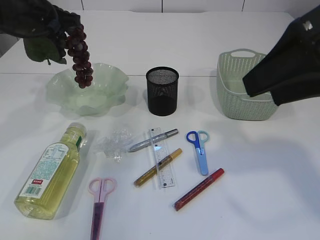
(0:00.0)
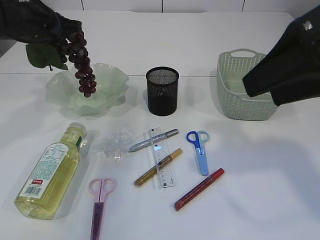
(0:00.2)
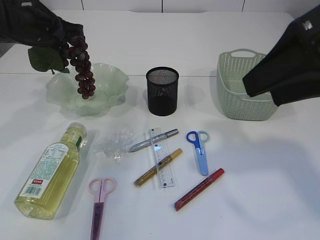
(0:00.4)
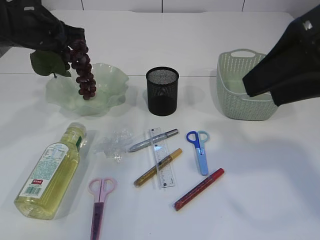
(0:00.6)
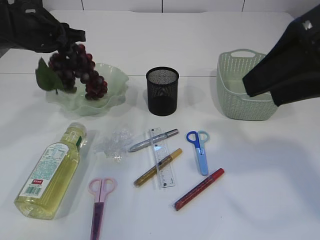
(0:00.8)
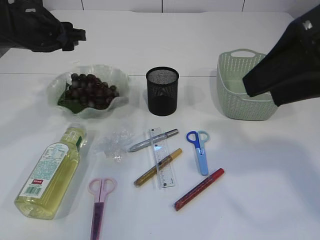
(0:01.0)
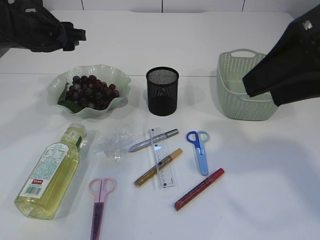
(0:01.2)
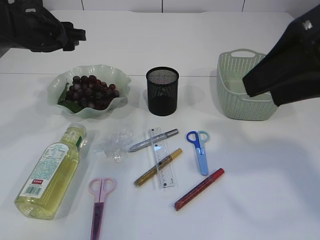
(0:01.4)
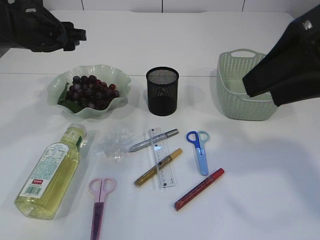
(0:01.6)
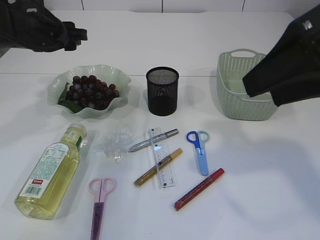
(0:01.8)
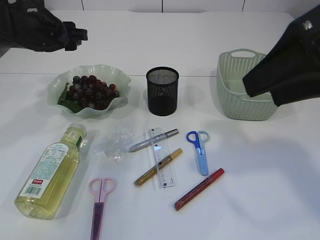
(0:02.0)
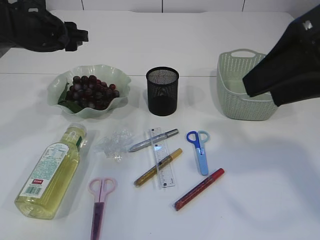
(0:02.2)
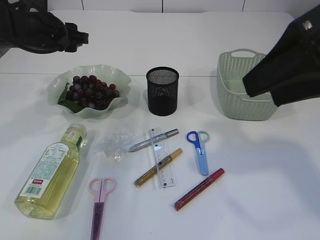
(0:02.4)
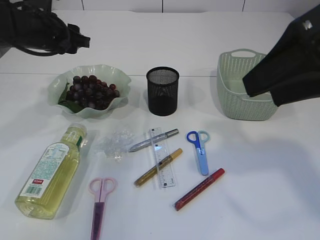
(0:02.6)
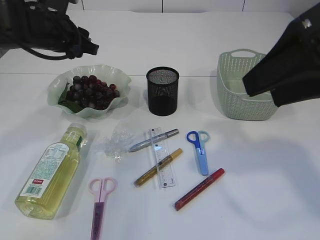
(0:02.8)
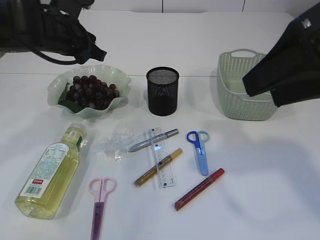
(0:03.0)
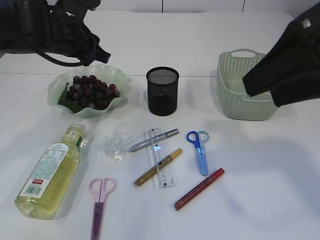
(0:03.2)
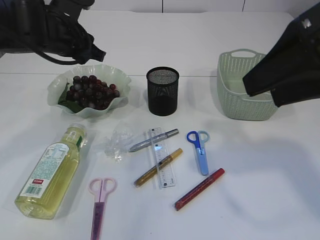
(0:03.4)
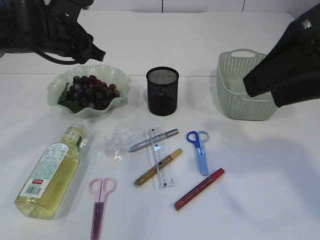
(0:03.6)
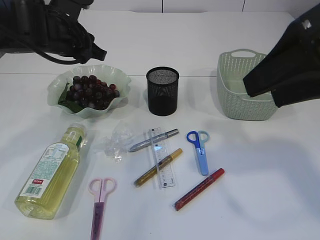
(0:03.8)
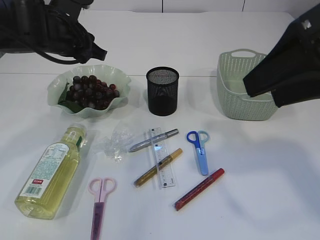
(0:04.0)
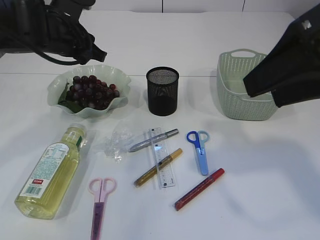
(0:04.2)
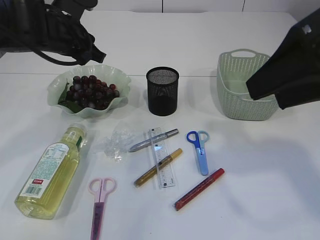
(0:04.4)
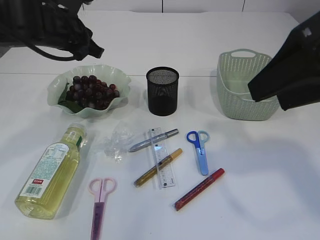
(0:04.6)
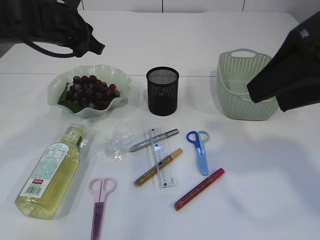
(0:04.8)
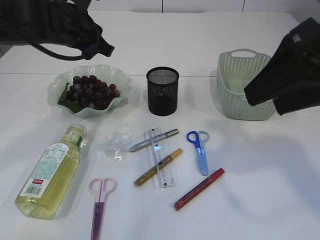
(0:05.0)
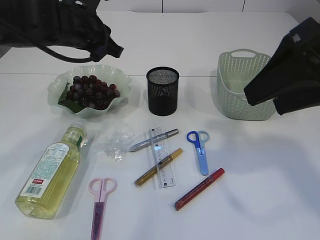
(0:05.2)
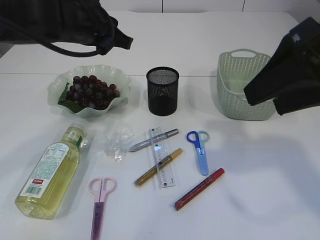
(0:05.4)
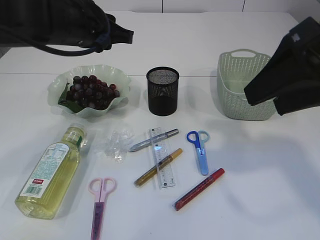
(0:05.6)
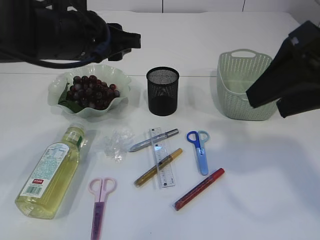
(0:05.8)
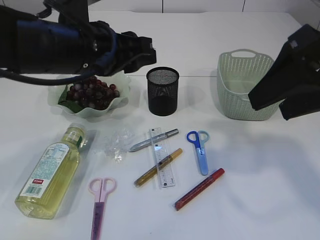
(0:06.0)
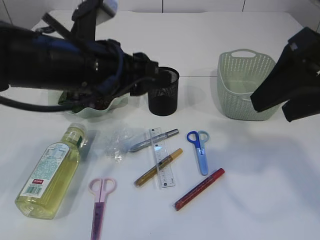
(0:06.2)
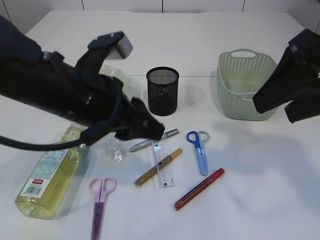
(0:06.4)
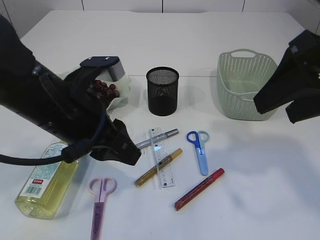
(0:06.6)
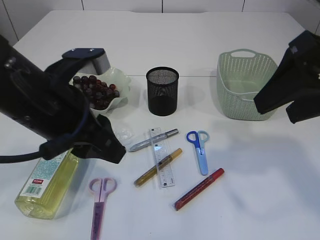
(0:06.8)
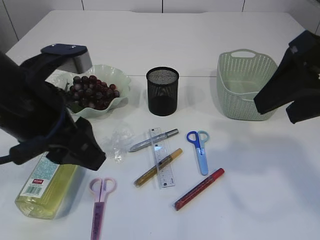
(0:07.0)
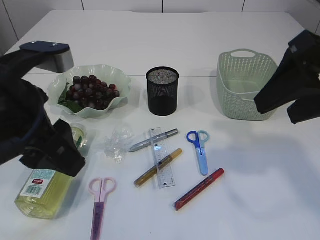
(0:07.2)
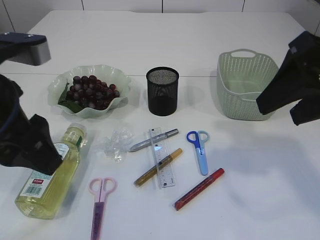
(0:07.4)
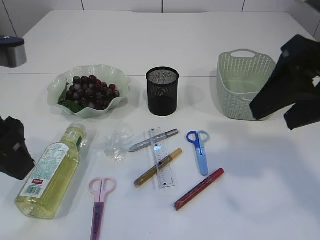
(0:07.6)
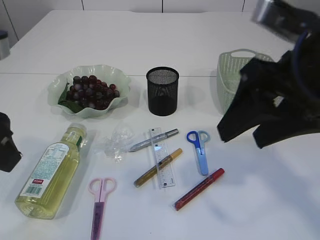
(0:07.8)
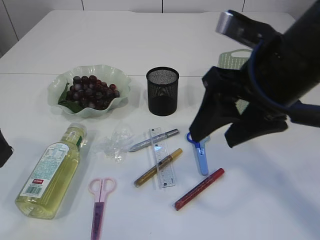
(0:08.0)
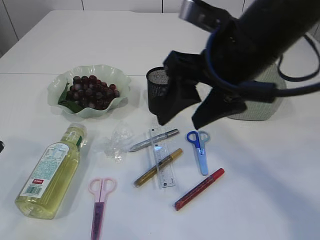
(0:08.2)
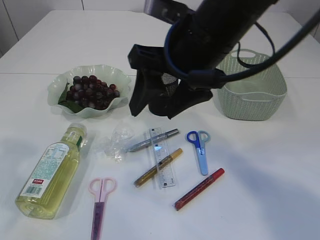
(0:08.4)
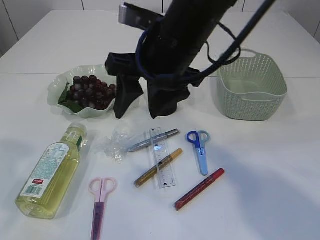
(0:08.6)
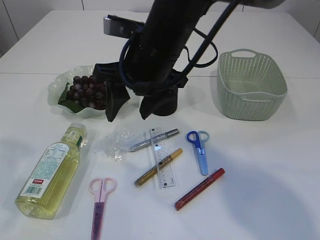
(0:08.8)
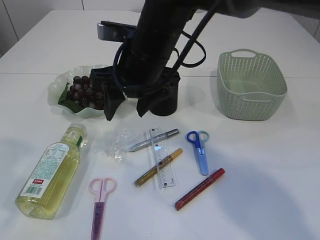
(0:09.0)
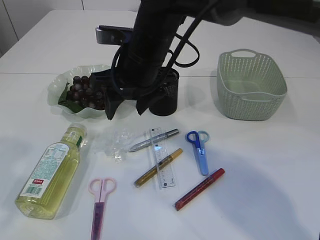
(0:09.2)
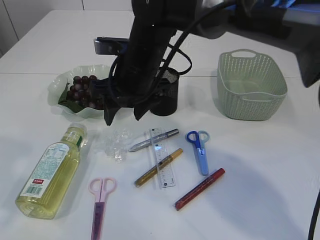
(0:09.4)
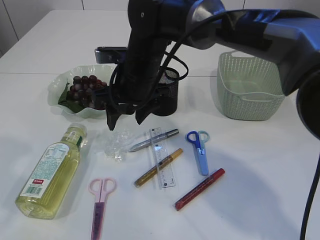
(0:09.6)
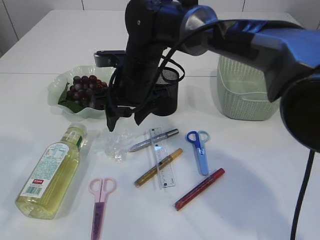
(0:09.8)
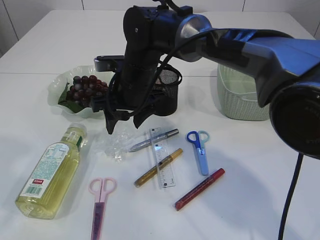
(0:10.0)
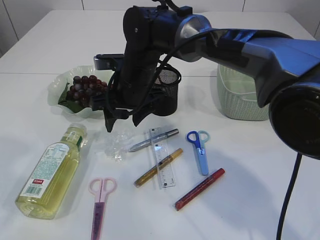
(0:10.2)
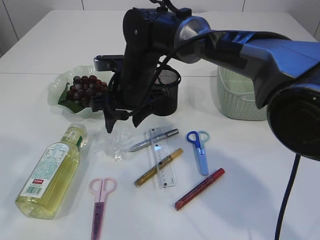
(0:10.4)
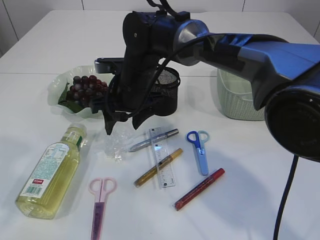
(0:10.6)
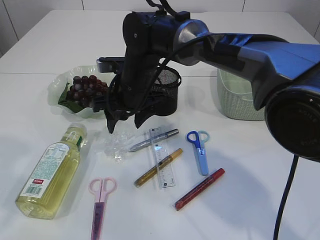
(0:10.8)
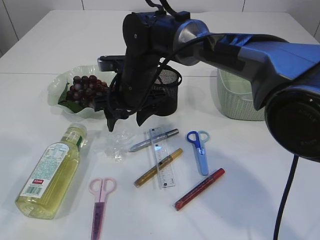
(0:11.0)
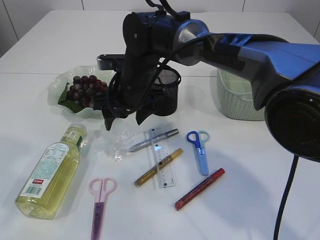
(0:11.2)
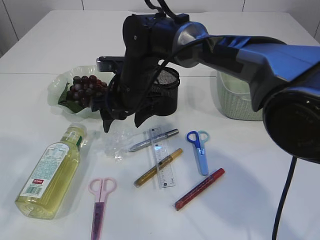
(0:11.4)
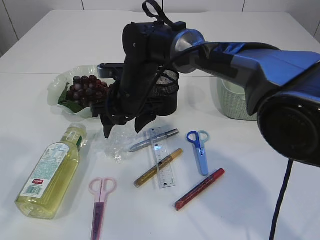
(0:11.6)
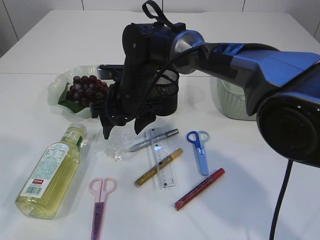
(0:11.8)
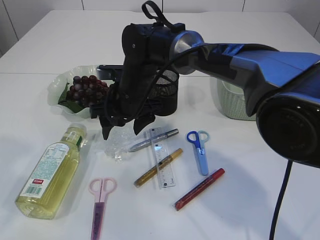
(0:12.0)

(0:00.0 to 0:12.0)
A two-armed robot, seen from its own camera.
Step, 0:00.0 - 0:02.8: Place the grapes in the plate.
0:00.0 - 0:01.6: The left gripper opens its fingers.
0:03.0 - 0:04.4: Neither gripper changes place.
0:04.4 - 0:06.0: The left gripper is displaced backward and to the right by roughly 10 cm.
0:06.0 - 0:07.6: The left gripper heads backward and to the left, covering roughly 15 cm.
0:07.6 - 0:09.0: The right gripper travels to the left and forward by about 25 cm; the left gripper shifts by approximately 5 cm.
0:09.0 - 0:10.4: The right gripper moves downward and forward, about 10 cm.
0:10.4 - 0:12.0: The grippers stay close to where they were, moving slightly.

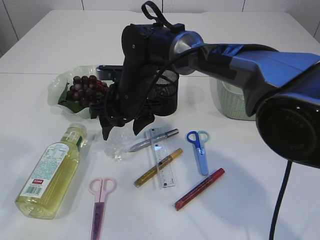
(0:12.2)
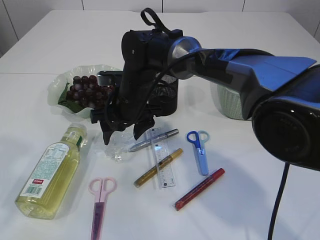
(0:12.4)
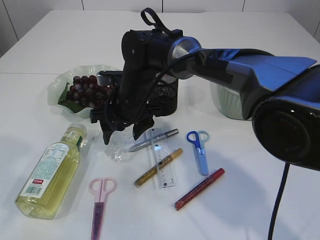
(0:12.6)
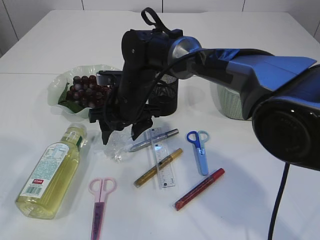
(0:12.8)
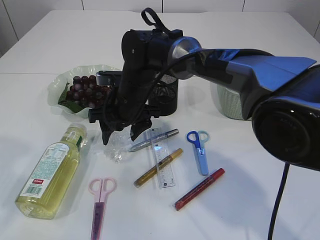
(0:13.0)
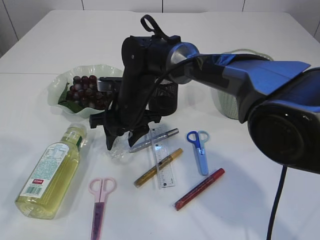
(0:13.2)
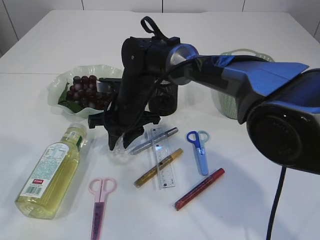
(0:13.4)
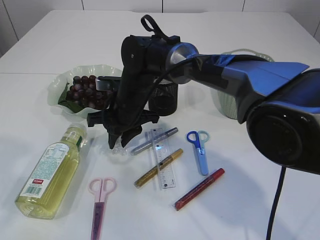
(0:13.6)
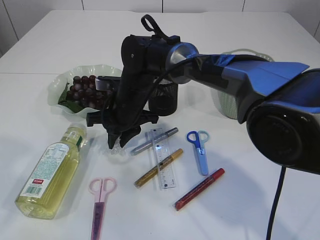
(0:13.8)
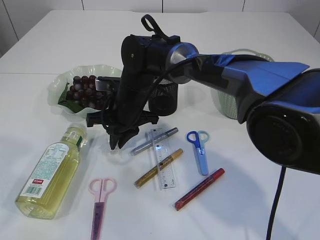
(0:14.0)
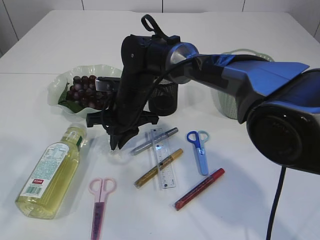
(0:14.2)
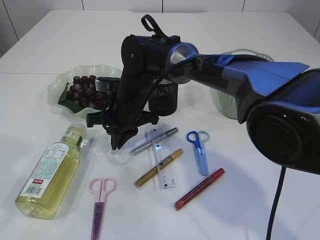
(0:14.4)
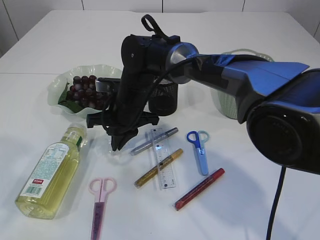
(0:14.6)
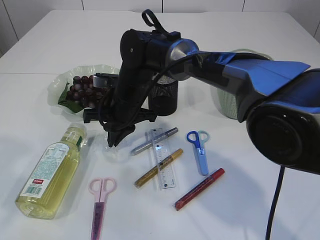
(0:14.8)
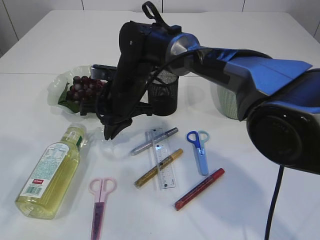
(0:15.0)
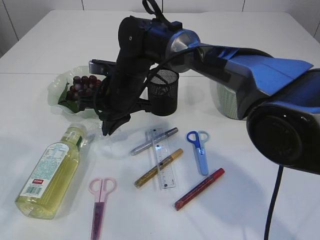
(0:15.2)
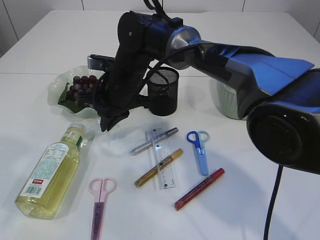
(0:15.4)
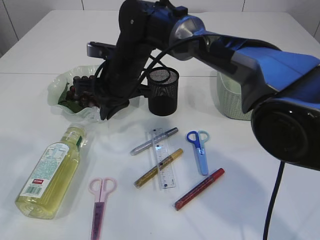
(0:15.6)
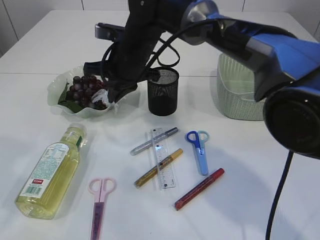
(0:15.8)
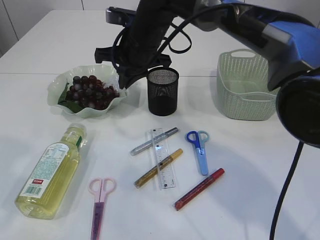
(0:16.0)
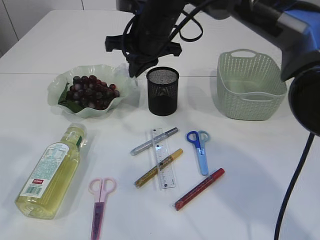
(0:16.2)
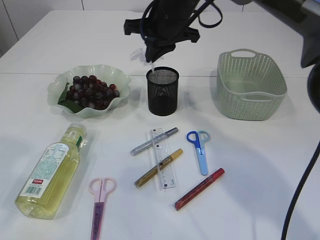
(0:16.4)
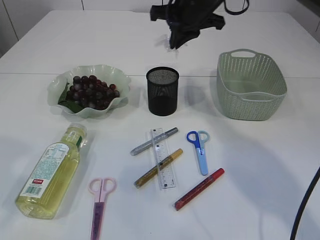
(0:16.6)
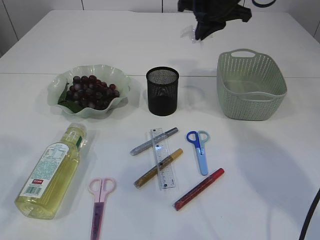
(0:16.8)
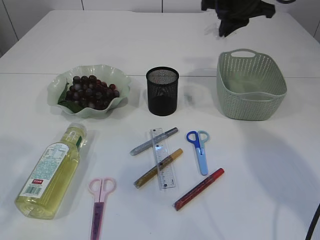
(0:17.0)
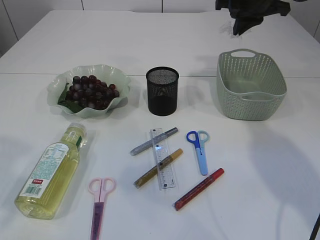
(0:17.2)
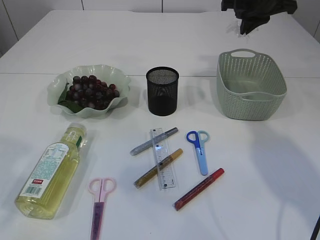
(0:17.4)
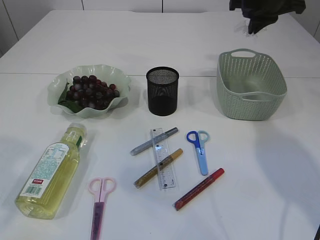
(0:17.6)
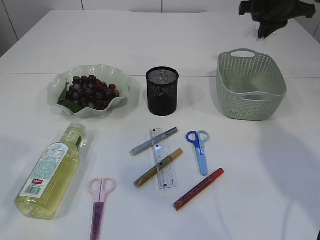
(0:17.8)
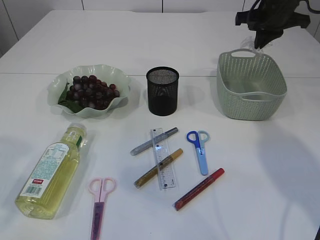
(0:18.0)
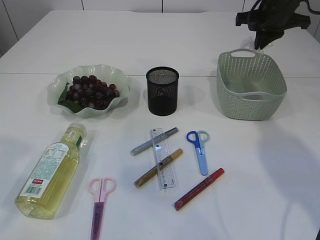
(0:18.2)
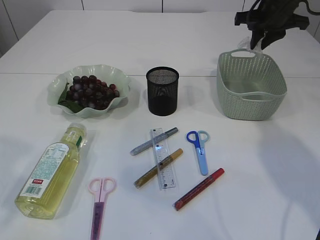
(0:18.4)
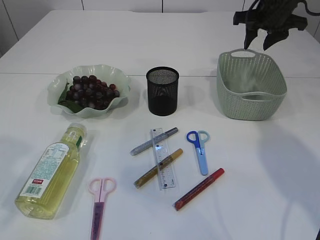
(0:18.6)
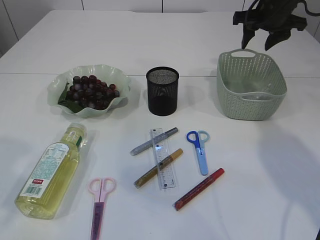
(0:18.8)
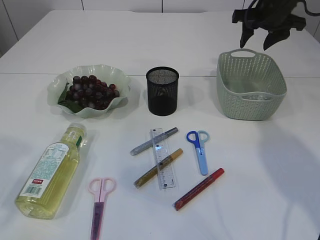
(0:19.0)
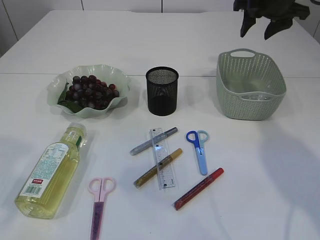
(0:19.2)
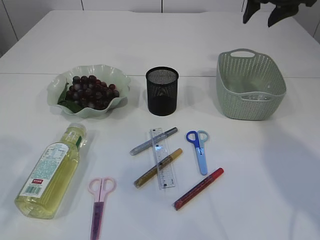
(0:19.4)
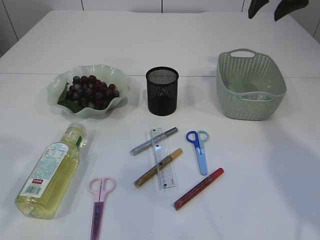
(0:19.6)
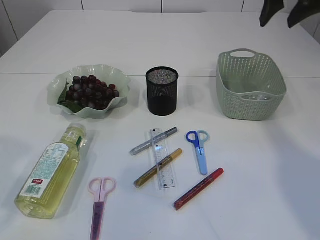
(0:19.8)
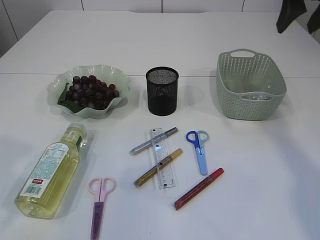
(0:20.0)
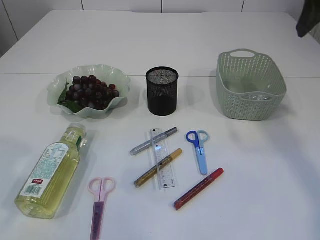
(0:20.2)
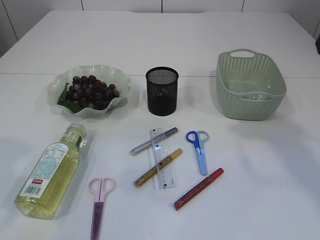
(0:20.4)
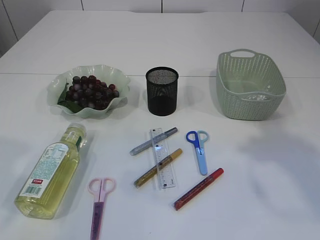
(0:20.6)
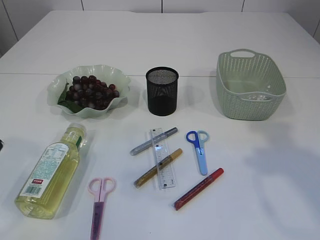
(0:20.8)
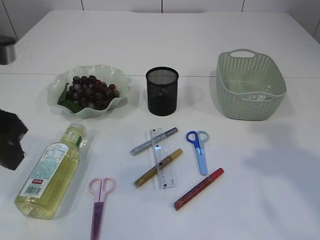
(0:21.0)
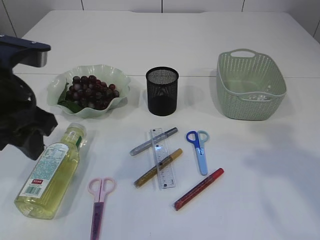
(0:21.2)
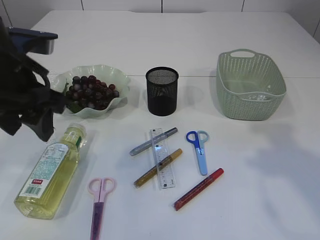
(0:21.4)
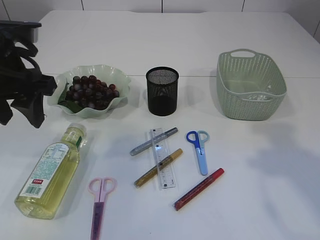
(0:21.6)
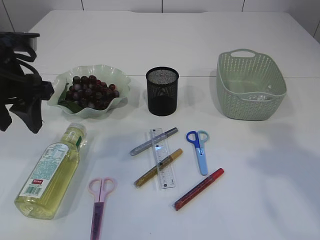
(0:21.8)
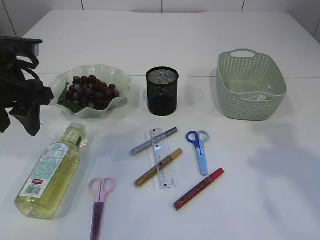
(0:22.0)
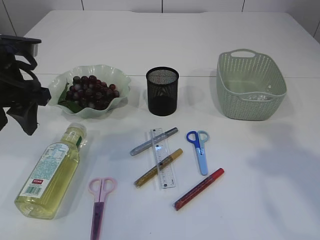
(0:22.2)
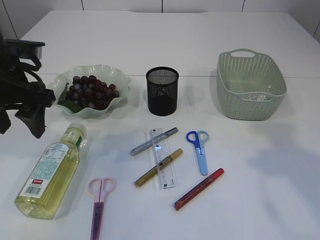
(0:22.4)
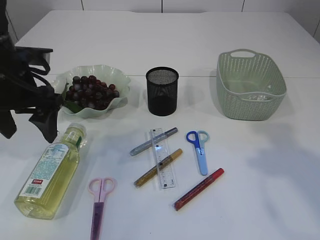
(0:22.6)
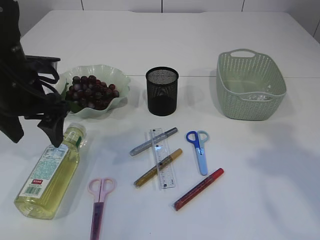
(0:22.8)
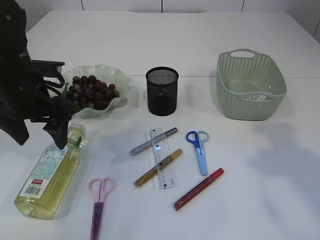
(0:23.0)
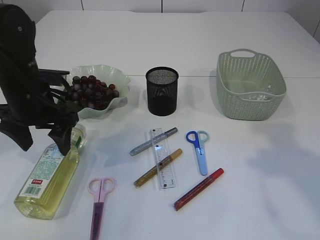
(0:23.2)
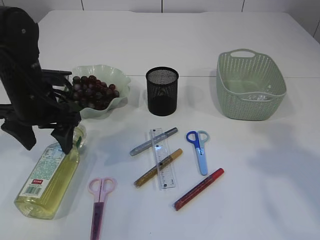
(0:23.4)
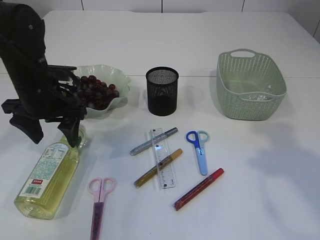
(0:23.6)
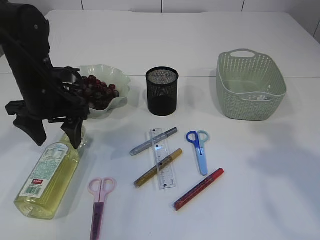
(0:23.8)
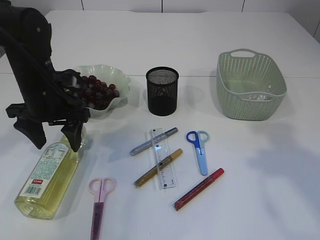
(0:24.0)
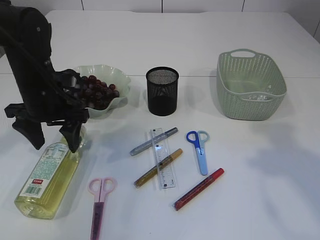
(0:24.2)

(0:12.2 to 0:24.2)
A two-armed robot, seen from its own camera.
Step, 0:12.2 - 0:15.8: Pick up the plastic.
Step, 0:16.0 - 0:19.6: Place the plastic in the basket.
0:12.2 - 0:13.8: The right gripper closes.
0:13.8 - 0:15.2: There are only small adjustments of the grippers.
0:15.2 - 0:16.6: The right gripper heads to the right, upward and forward, covering approximately 20 cm.
0:16.6 - 0:18.2: The right gripper heads to the right, covering about 15 cm.
0:18.2 - 0:19.8: The right gripper heads upward and backward, covering approximately 10 cm, and opens.
0:19.8 - 0:21.2: The right gripper heads backward, covering roughly 25 cm. The left gripper travels forward and downward by about 10 cm.
0:21.2 - 0:22.6: The left gripper goes approximately 10 cm forward.
0:22.6 - 0:24.2: The left gripper heads downward, covering roughly 5 cm.
